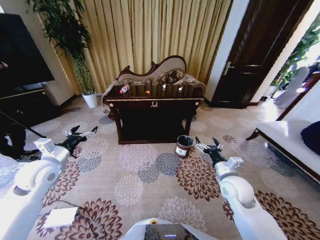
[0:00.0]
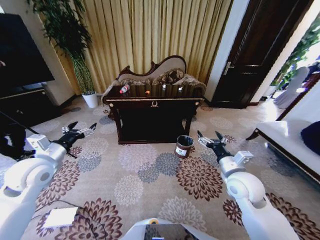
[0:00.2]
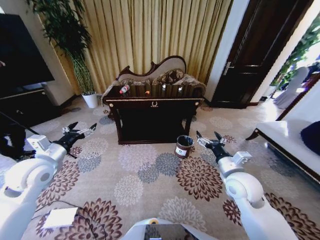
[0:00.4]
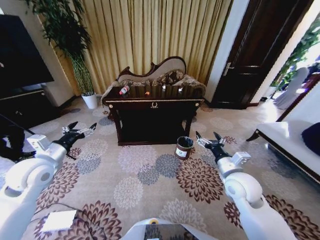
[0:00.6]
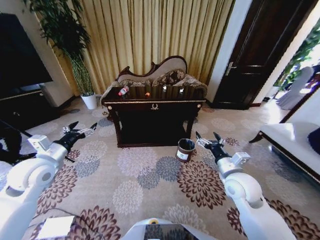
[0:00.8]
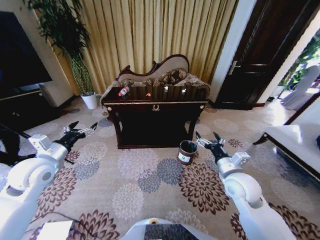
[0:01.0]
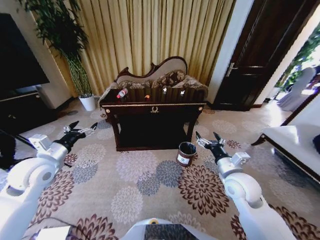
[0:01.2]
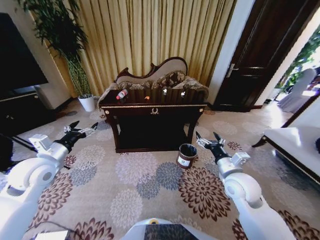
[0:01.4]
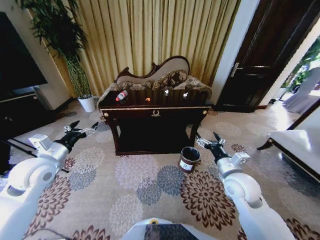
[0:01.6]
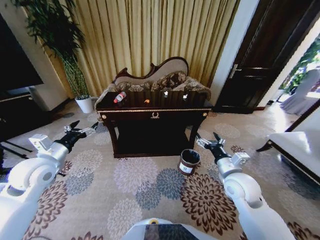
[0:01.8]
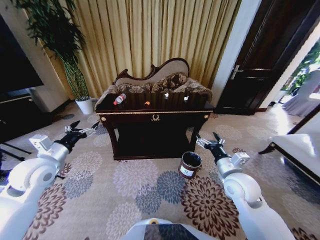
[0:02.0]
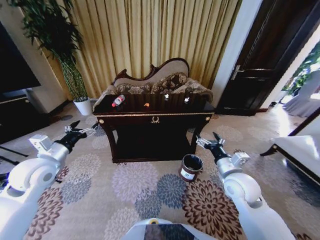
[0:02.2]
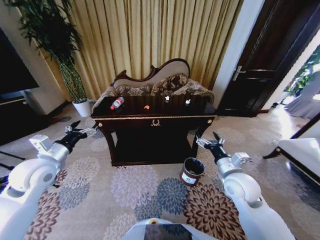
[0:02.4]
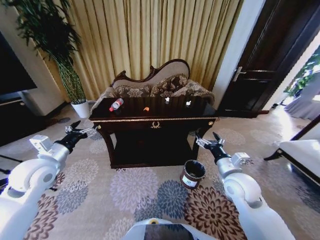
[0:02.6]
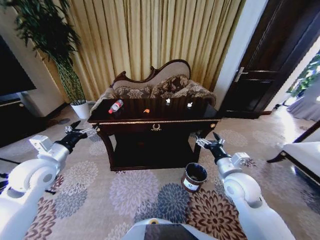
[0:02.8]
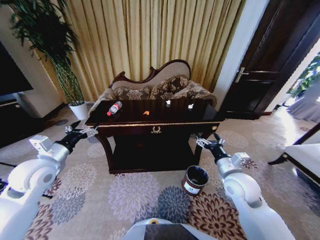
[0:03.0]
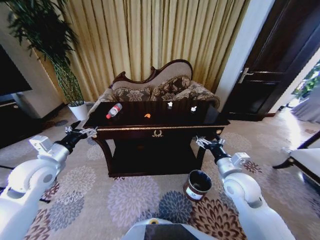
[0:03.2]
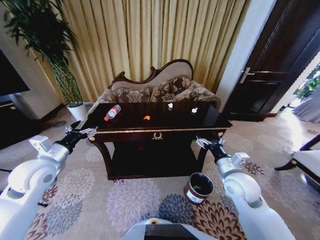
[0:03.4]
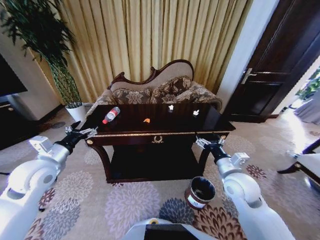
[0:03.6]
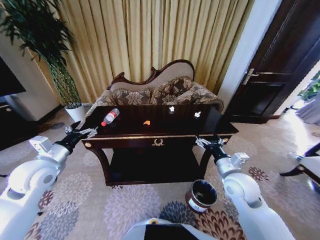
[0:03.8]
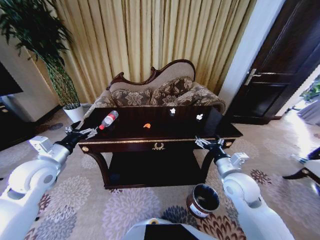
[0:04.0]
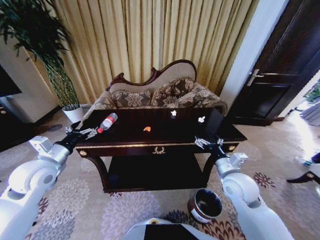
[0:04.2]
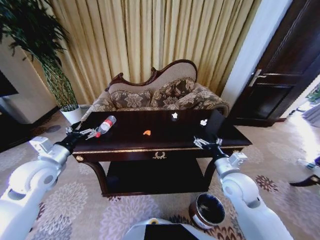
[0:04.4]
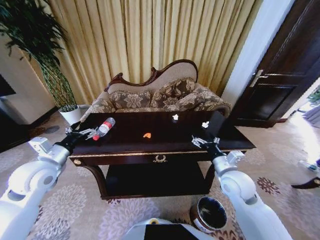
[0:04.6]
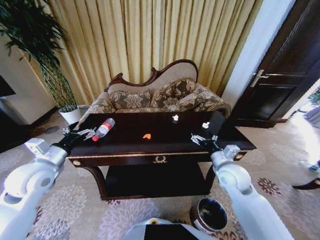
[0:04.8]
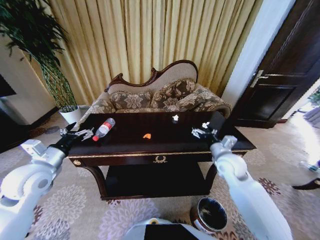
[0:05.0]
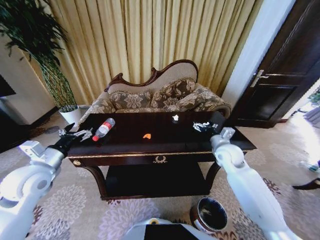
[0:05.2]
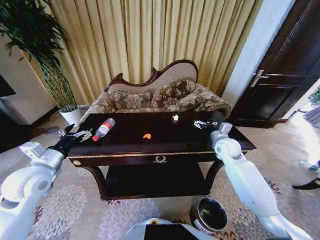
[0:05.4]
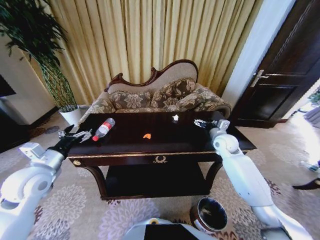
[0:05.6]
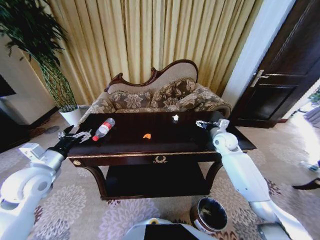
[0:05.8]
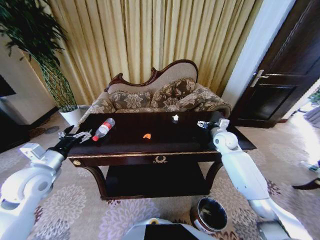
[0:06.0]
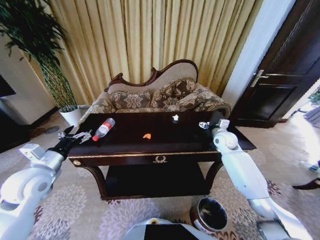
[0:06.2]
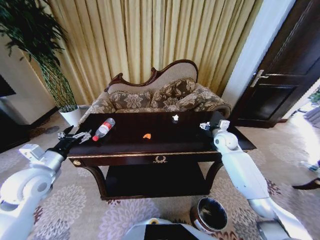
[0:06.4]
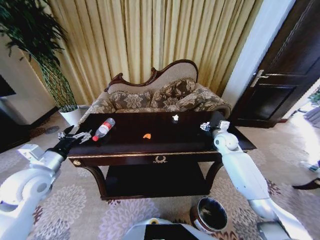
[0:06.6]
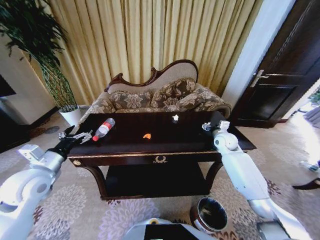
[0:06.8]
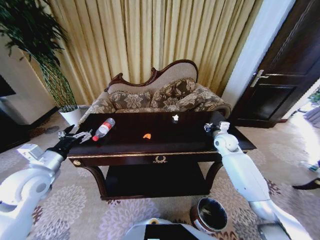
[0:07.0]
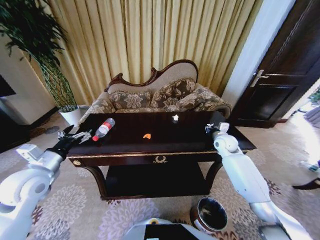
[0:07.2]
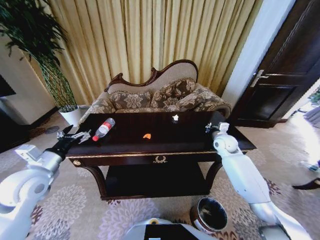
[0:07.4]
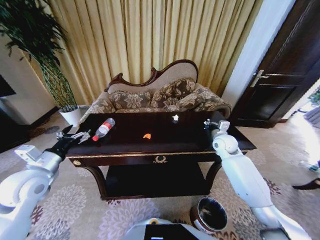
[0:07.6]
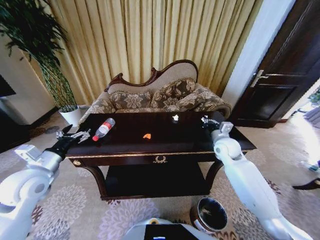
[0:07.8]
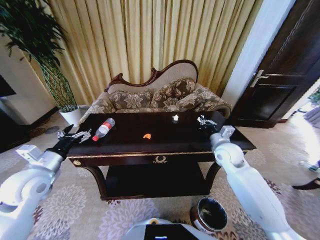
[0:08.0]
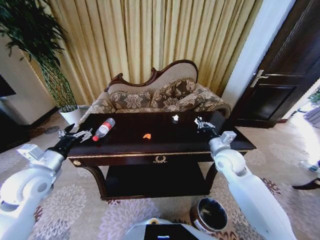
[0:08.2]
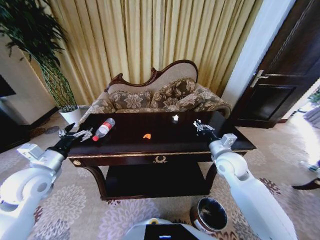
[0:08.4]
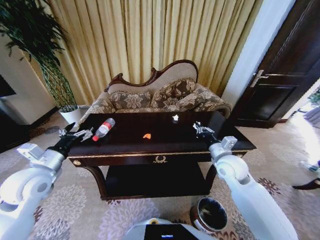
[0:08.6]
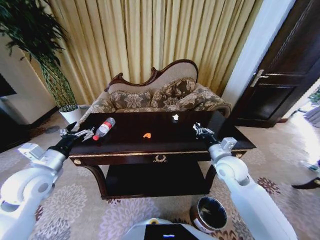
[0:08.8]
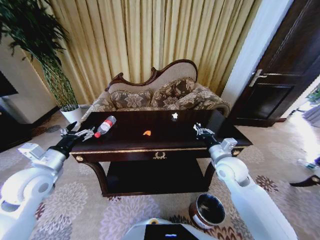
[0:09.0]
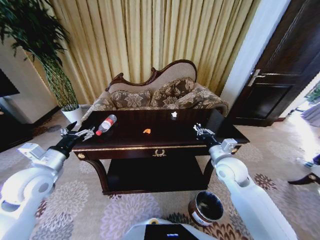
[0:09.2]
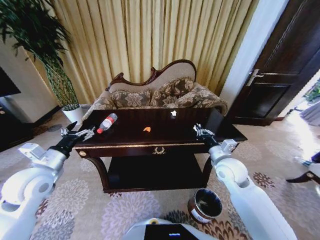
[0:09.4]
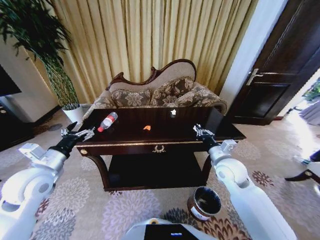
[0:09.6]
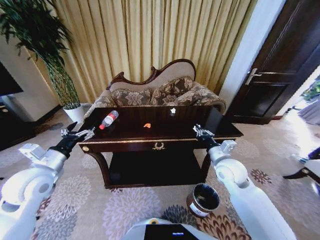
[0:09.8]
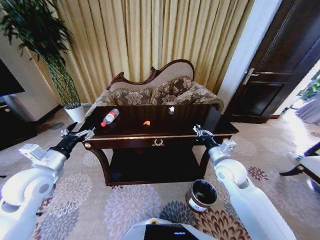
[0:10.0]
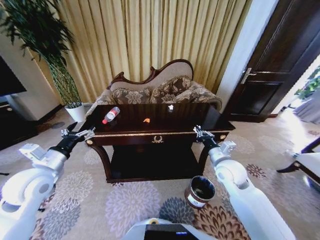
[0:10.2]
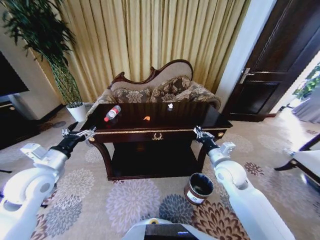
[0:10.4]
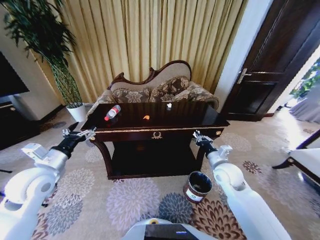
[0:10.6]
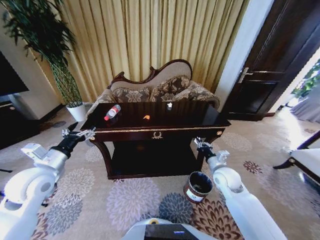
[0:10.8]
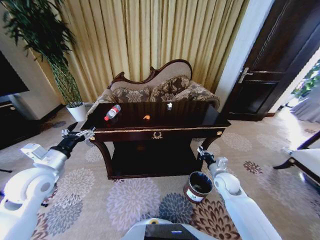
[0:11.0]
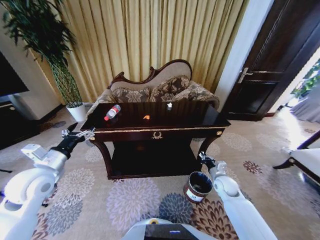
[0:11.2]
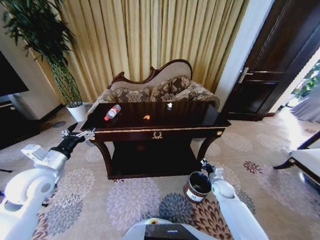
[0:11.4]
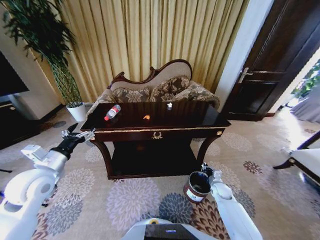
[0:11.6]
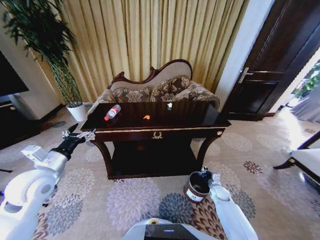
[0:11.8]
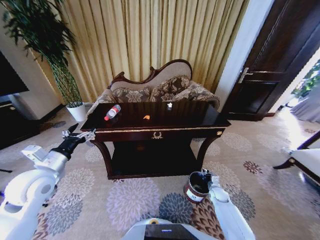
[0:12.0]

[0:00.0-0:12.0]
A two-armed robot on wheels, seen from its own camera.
Task of the whole recording: Move to the front of the table and place the trash on the table into the trash bin.
0:04.4 to 0:06.0: The right gripper goes roughly 20 cm forward.
0:06.0 to 0:07.6: The right gripper closes up.
0:07.6 to 0:09.0: The right gripper travels backward by about 15 cm.
0:10.4 to 0:12.0: The right gripper heads downward, covering approximately 30 cm.

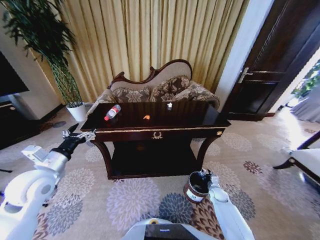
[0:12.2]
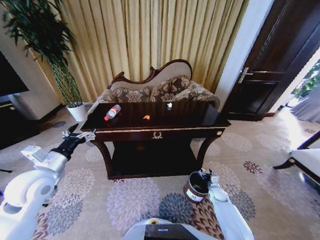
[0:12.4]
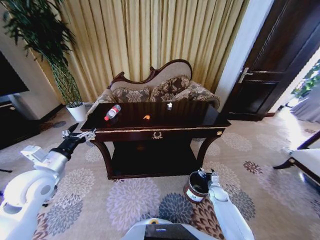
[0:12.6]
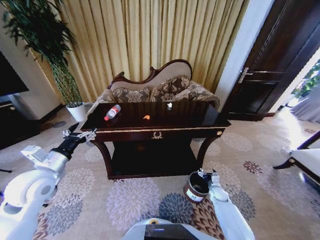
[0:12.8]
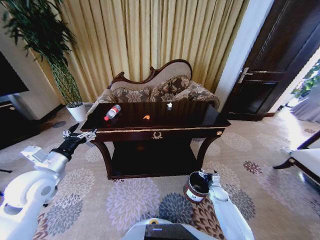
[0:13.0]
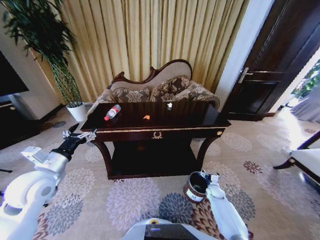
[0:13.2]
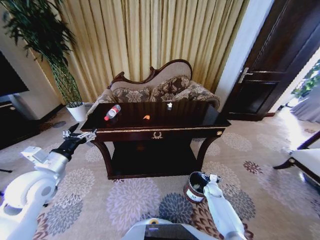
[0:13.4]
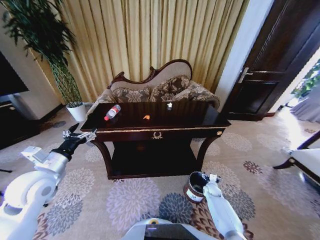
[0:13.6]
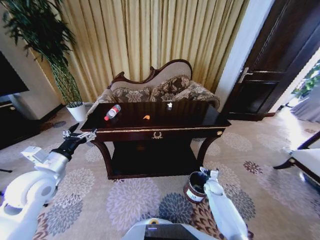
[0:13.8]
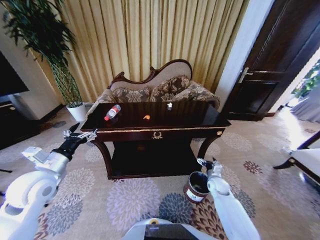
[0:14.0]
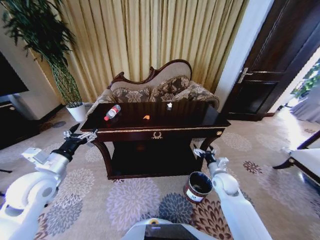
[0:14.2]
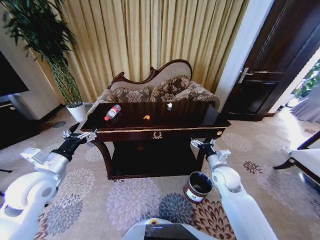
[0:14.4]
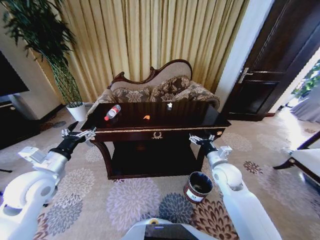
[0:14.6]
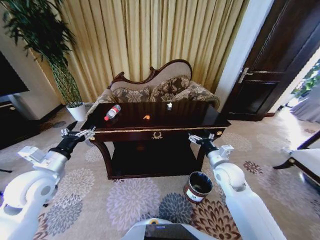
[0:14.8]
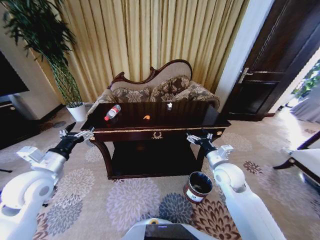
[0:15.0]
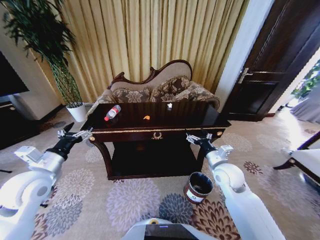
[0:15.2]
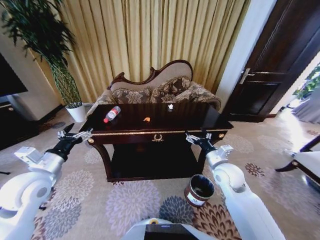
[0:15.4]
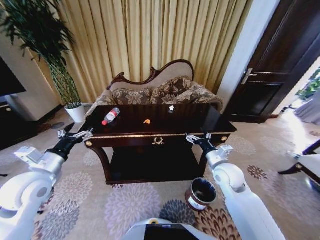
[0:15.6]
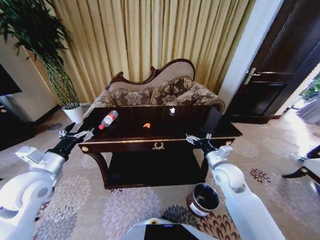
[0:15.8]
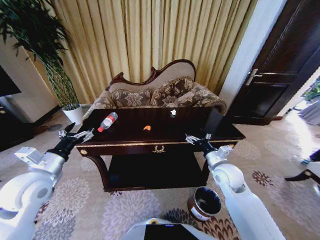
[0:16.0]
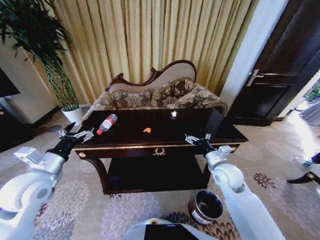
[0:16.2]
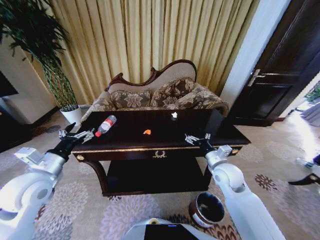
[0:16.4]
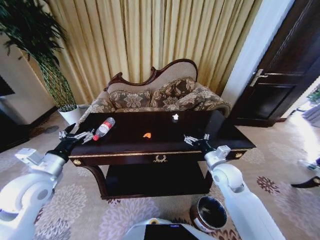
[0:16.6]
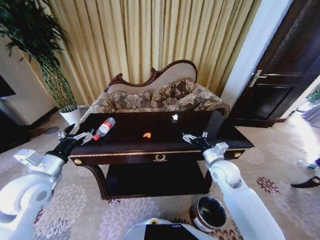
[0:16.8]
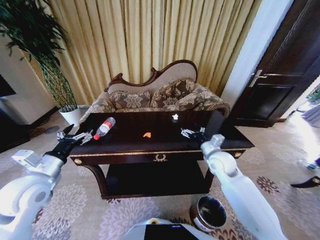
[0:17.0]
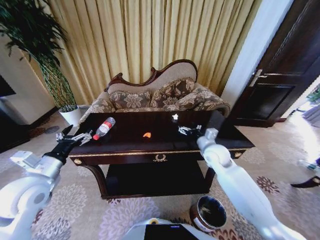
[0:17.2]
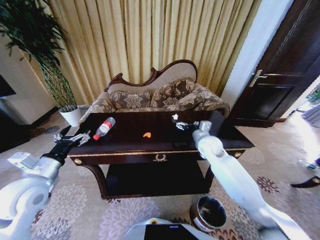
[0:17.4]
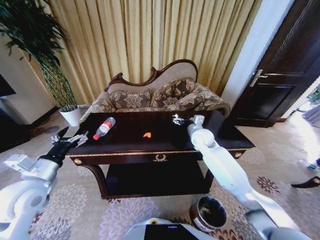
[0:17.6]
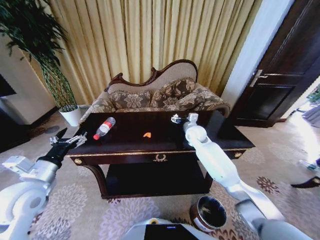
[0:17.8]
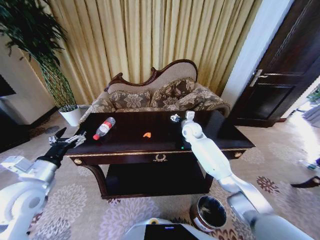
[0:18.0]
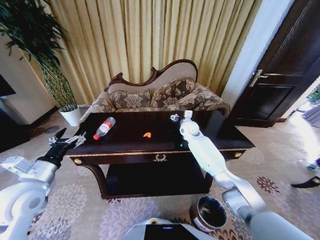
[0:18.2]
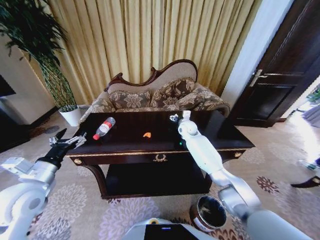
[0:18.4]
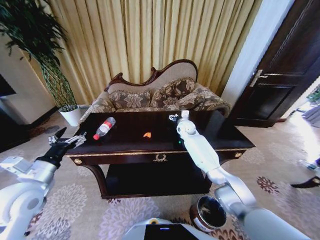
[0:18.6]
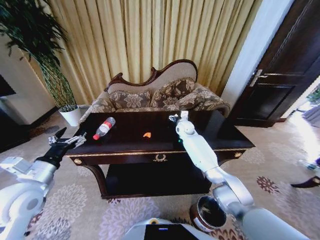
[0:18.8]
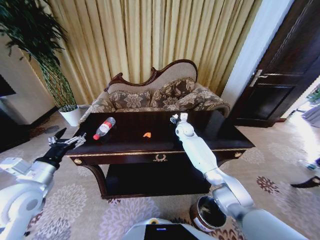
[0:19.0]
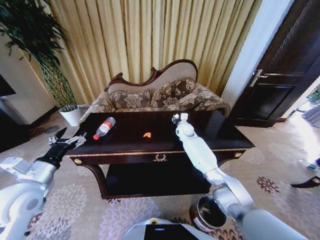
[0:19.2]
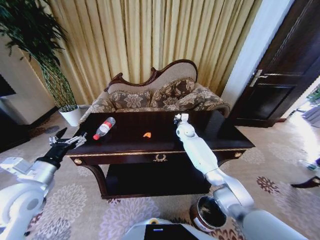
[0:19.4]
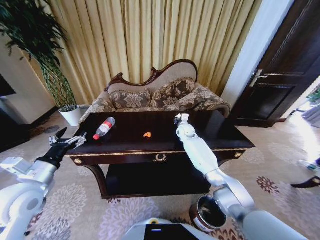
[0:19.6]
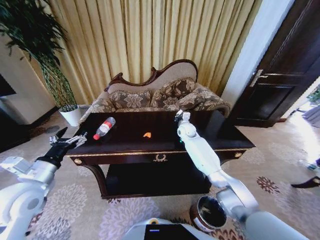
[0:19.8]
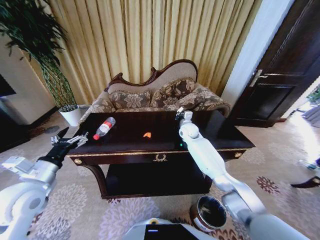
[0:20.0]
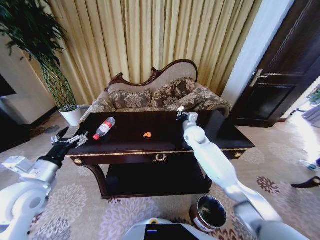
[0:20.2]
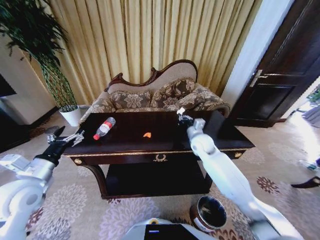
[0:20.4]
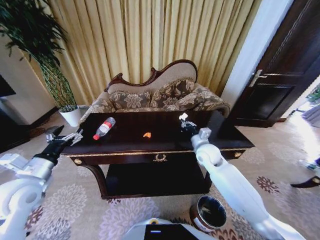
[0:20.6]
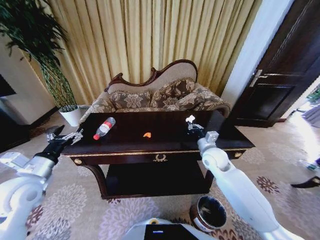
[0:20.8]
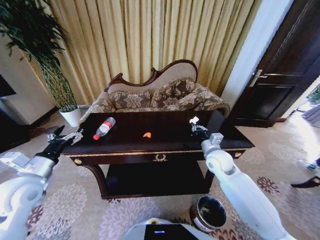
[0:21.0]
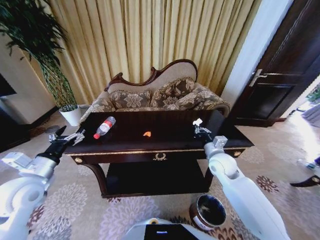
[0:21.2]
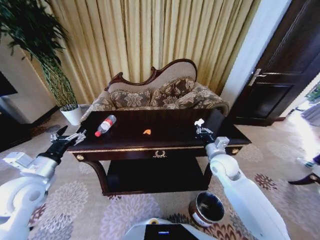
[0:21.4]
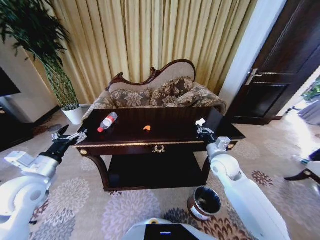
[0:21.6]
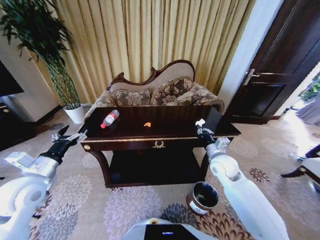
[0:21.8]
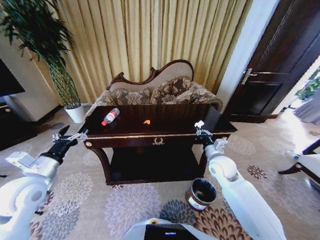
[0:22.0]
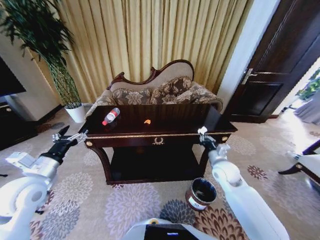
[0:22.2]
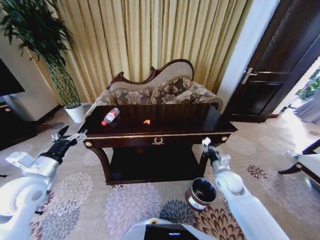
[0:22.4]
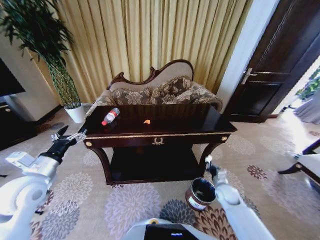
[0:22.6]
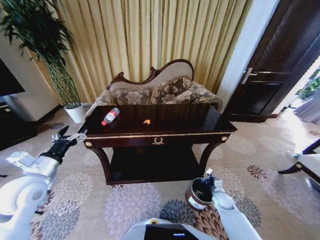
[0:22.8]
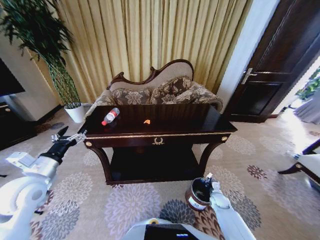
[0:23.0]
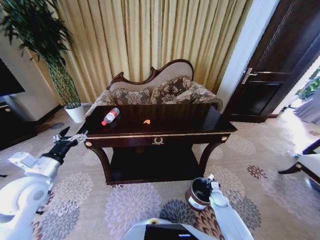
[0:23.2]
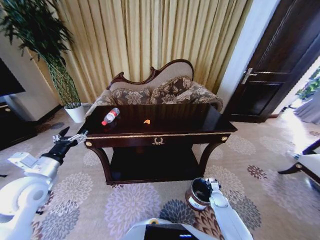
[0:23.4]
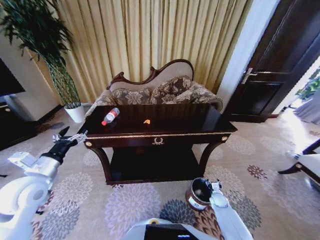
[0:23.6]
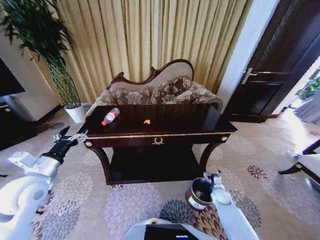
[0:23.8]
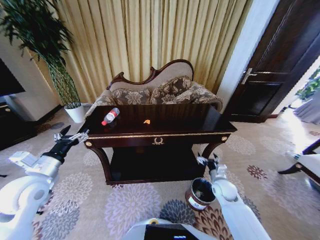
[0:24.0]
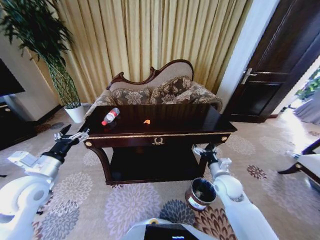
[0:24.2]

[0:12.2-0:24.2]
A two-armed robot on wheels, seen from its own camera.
Task of the whole recording: Move to the front of the table and place the trash on the table into the trash bin.
0:12.2 to 0:13.8: The right gripper opens up.
0:13.8 to 0:15.2: The right gripper heads upward, covering some 30 cm.
0:16.6 to 0:18.2: The right gripper goes approximately 25 cm forward.
0:18.2 to 0:19.8: The right gripper closes.
0:19.8 to 0:21.2: The right gripper shifts approximately 20 cm backward.
0:21.2 to 0:22.6: The right gripper heads downward and to the right, covering about 25 cm.
0:22.6 to 0:24.2: The right gripper travels upward and to the left by roughly 15 cm, and opens its fingers.
